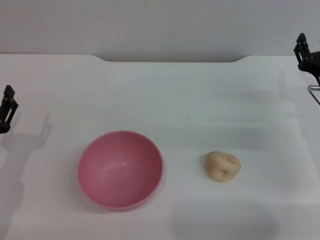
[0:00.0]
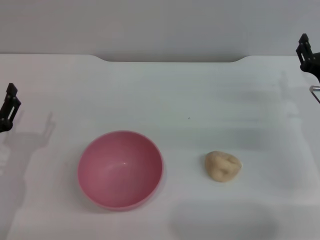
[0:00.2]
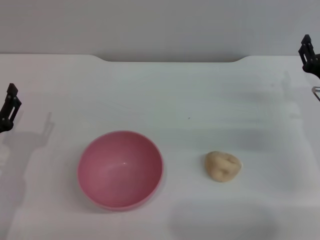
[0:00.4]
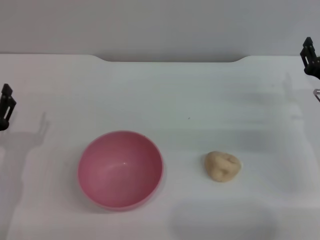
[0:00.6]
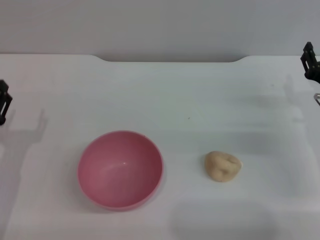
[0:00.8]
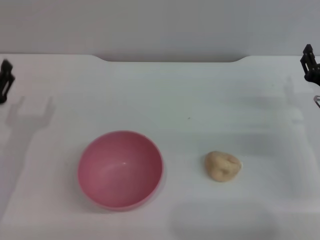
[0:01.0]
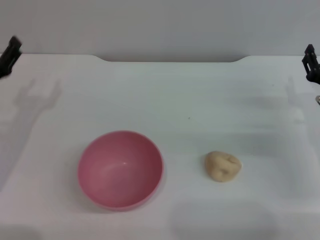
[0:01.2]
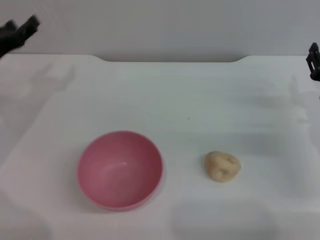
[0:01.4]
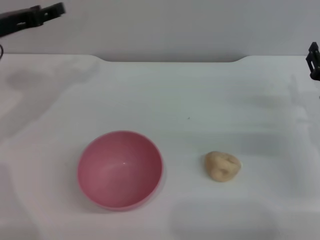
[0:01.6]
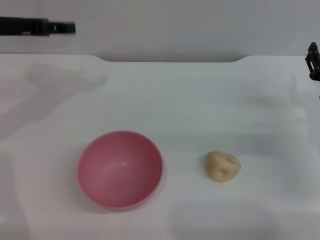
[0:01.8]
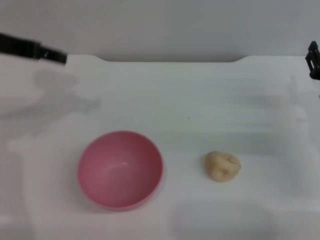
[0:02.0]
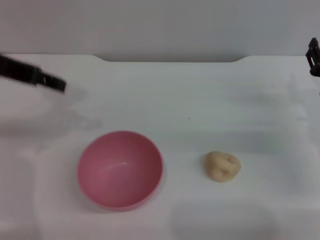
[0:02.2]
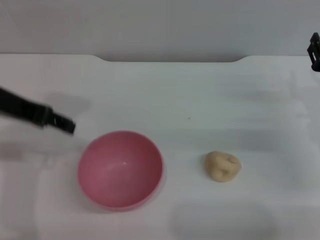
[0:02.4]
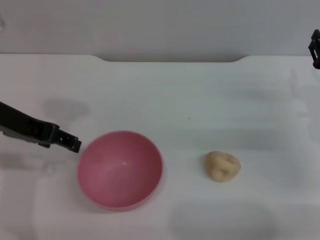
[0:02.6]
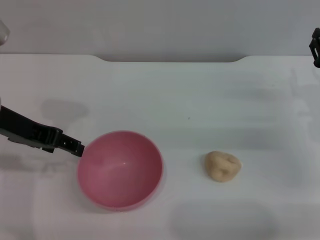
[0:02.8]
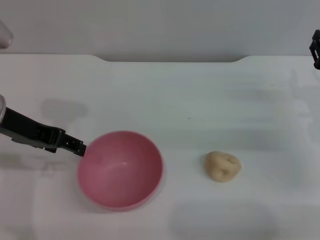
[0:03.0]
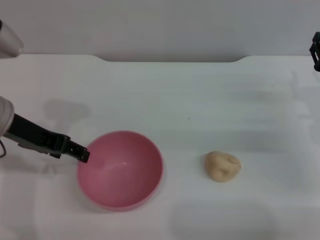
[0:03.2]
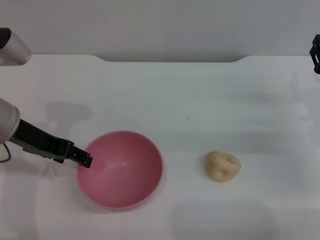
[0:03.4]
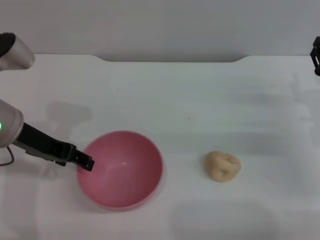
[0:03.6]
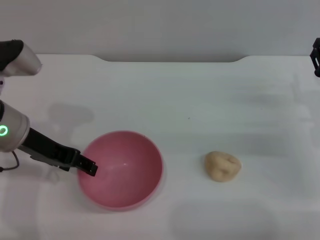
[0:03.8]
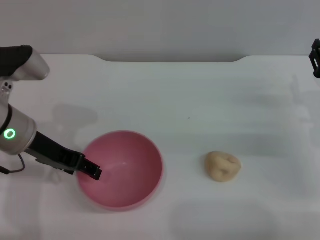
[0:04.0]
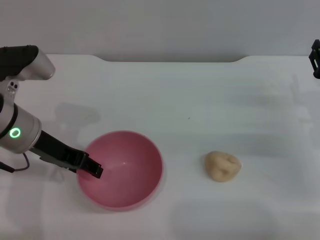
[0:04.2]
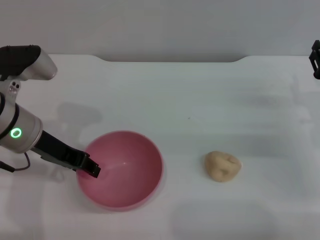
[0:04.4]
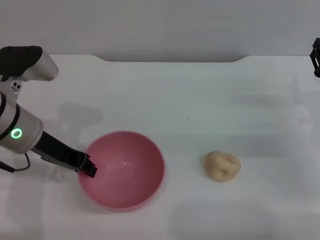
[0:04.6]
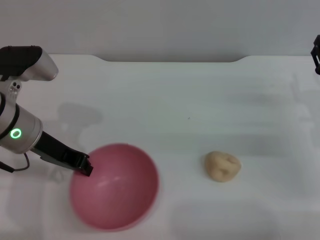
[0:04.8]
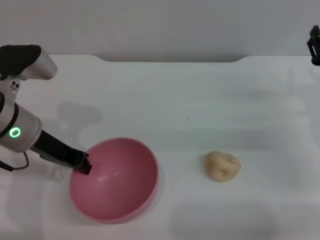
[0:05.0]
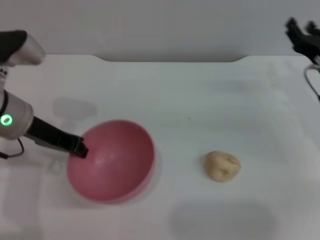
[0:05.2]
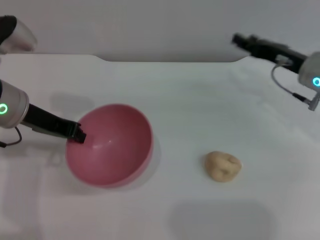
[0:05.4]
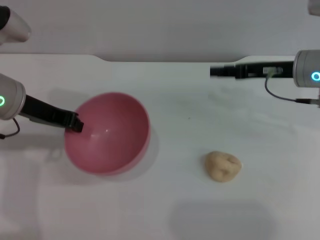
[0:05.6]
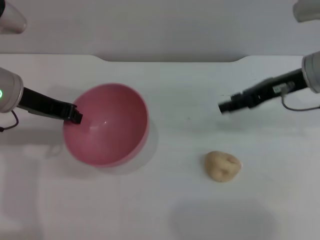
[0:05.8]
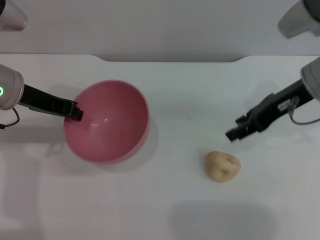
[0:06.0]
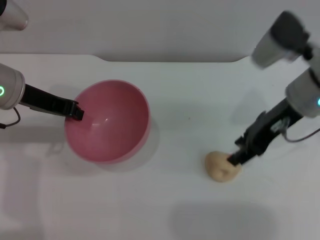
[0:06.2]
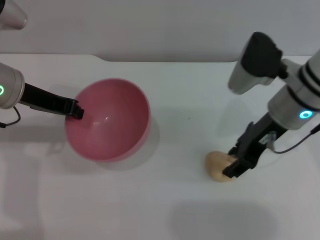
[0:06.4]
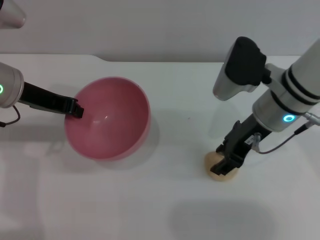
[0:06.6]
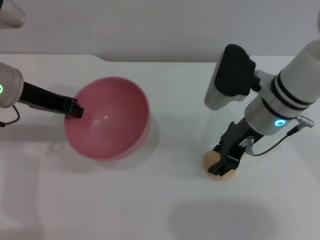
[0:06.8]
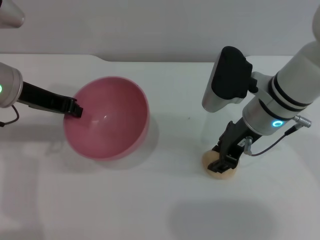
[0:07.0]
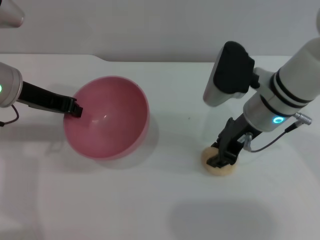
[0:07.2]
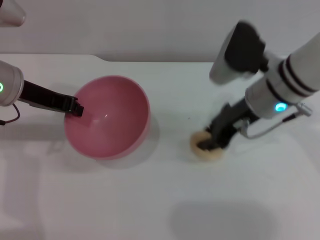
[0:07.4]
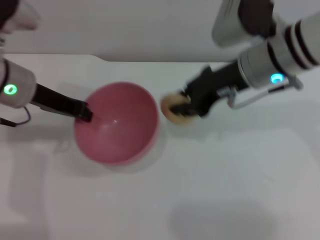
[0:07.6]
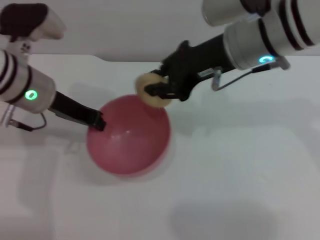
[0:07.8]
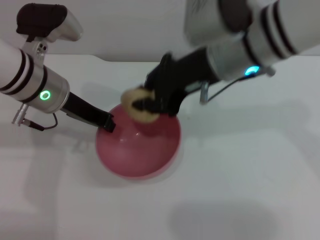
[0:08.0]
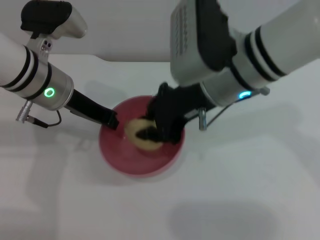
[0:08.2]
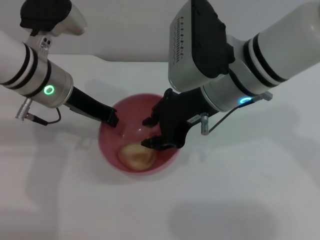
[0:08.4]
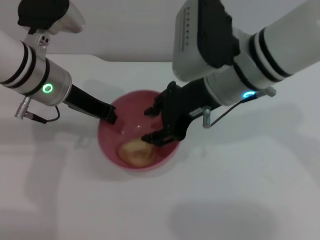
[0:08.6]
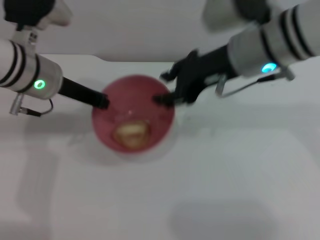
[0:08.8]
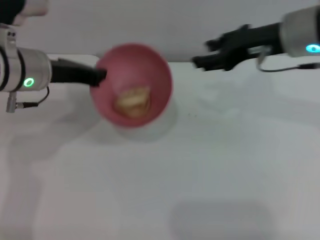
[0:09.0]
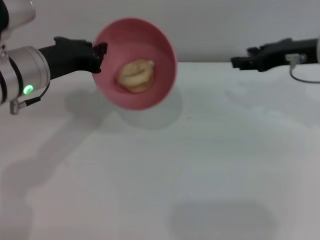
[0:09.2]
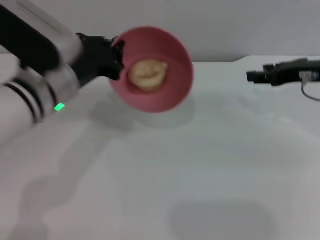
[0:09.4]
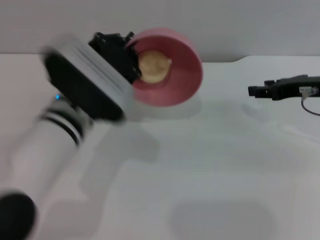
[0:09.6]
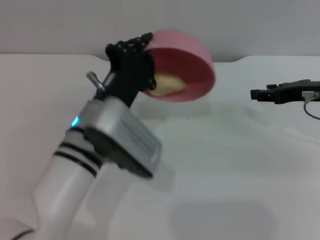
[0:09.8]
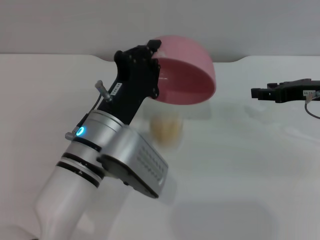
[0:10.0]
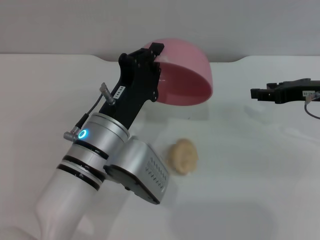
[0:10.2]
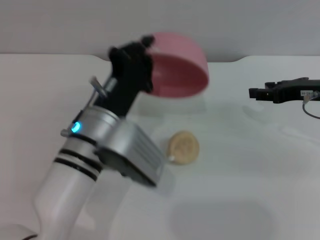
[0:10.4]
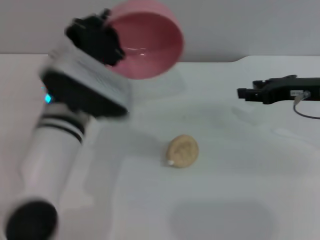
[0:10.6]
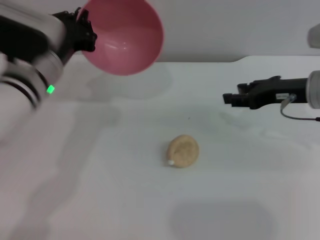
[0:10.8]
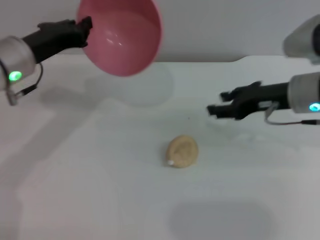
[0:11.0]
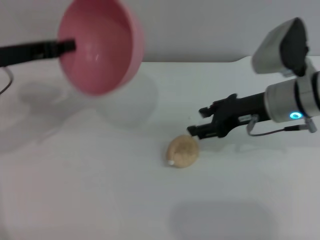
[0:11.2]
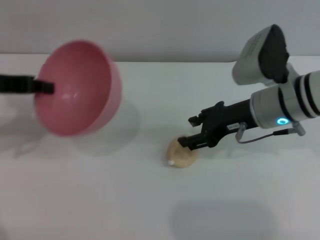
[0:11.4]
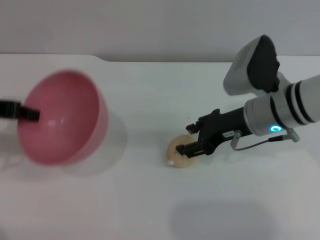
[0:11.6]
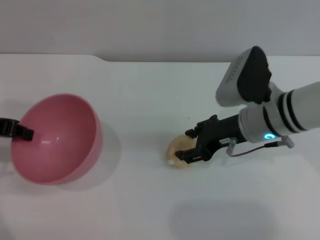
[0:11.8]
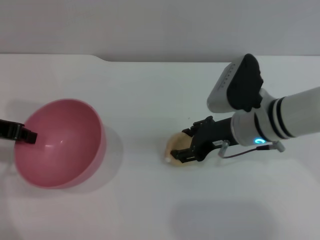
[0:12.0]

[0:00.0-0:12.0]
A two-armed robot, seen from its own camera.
Task of the whole recording: put the egg yolk pastry into the pink bowl and pour it out repeatedly.
Step, 0:00.0 to 0:05.2: Pick up the bowl with the left gripper.
Step, 0:05.6 to 0:07.2: Pick up the egg yolk pastry with the right gripper.
Step, 0:07.4 to 0:08.8: Place the egg yolk pastry into the bowl.
Step, 0:09.0 to 0:10.0: Pour the egg yolk pastry out of bowl.
0:00.0 to 0:01.6: The left gripper moves forward and upward, approximately 25 cm.
0:01.6 to 0:03.0: The left gripper goes about 10 cm backward and to the right.
0:03.0 to 0:04.4: The left gripper moves downward, roughly 5 cm.
0:04.4 to 0:06.0: The right gripper travels upward and to the left by some 15 cm; the left gripper ends up about 5 cm from where it was, and closes.
0:06.0 to 0:07.6: The right gripper goes roughly 10 cm to the left.
0:07.6 to 0:09.0: The right gripper goes about 5 cm to the right, and opens its fingers.
0:09.0 to 0:10.4: The left gripper shifts some 15 cm to the right, backward and downward. Meanwhile the right gripper goes some 15 cm to the right and downward.
0:10.4 to 0:12.0: The left gripper travels to the left and upward by approximately 25 cm, while the right gripper shifts approximately 15 cm to the left.

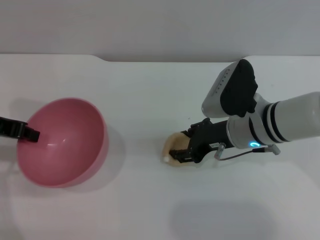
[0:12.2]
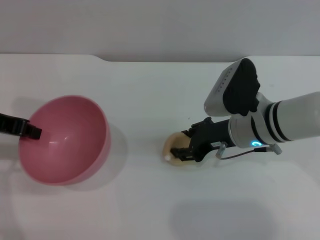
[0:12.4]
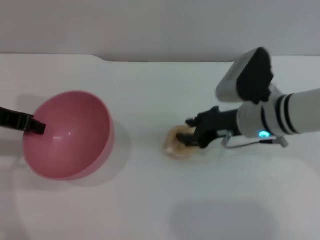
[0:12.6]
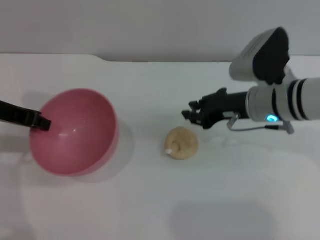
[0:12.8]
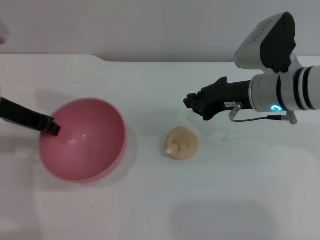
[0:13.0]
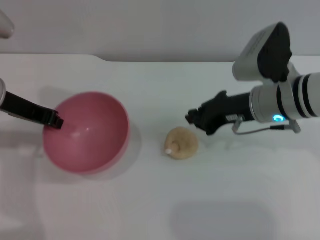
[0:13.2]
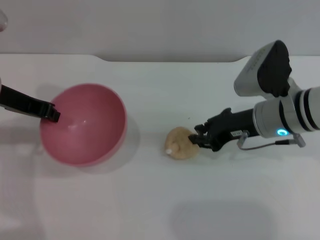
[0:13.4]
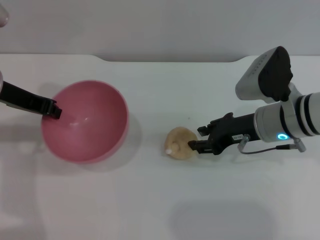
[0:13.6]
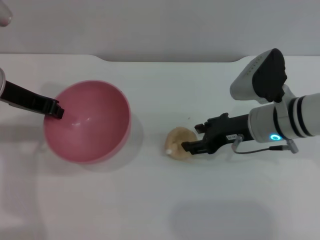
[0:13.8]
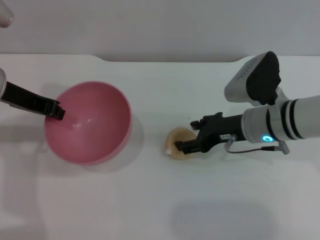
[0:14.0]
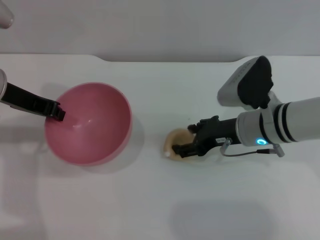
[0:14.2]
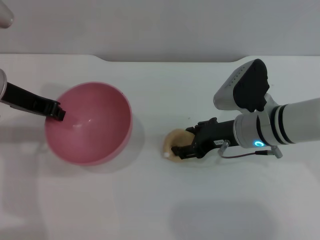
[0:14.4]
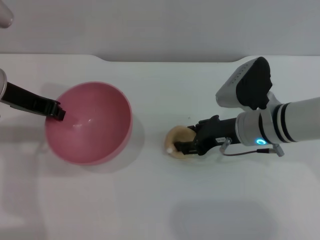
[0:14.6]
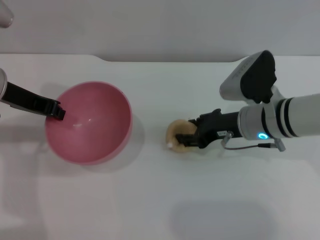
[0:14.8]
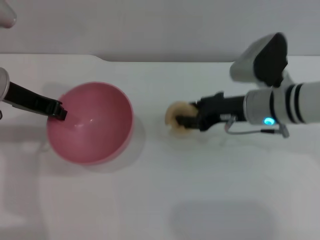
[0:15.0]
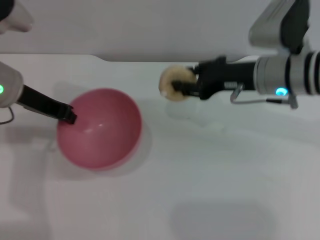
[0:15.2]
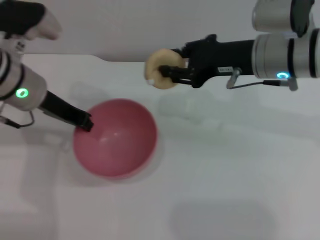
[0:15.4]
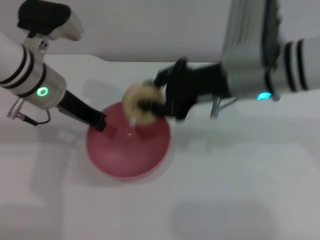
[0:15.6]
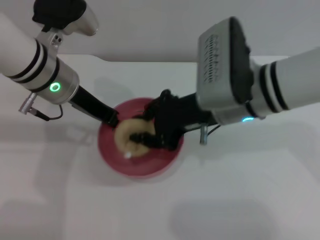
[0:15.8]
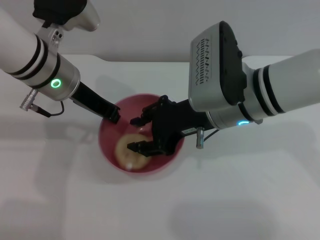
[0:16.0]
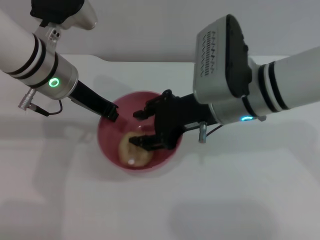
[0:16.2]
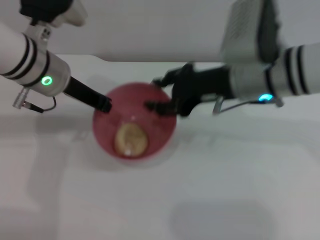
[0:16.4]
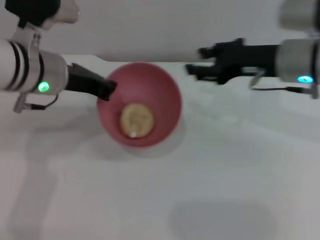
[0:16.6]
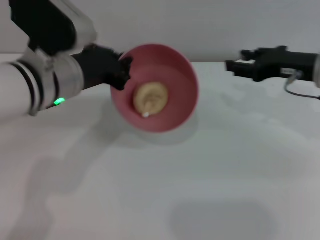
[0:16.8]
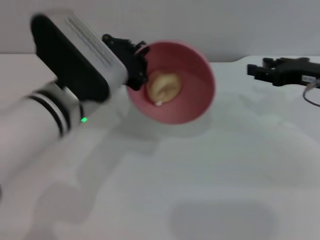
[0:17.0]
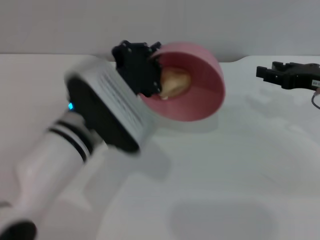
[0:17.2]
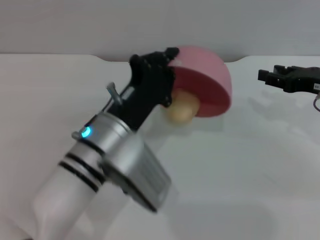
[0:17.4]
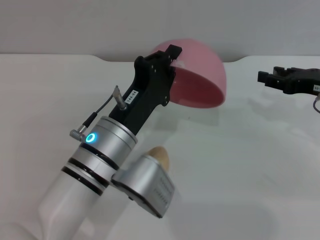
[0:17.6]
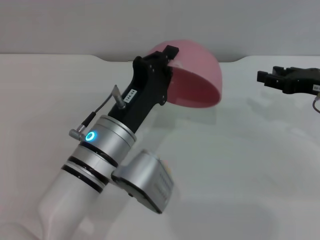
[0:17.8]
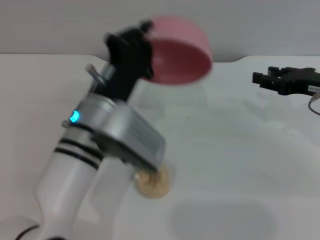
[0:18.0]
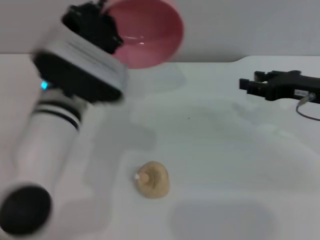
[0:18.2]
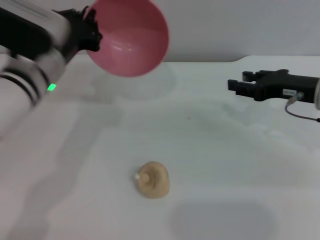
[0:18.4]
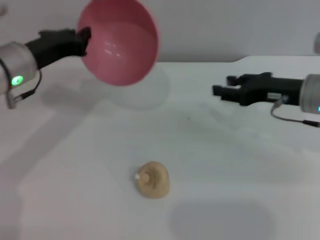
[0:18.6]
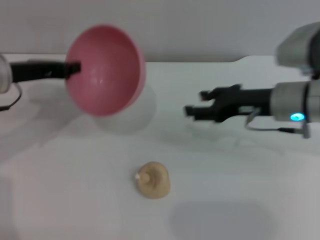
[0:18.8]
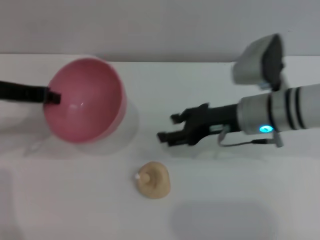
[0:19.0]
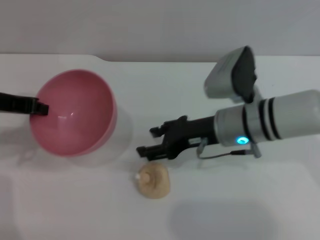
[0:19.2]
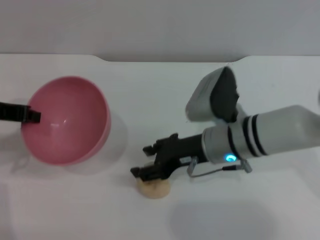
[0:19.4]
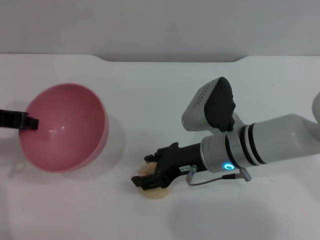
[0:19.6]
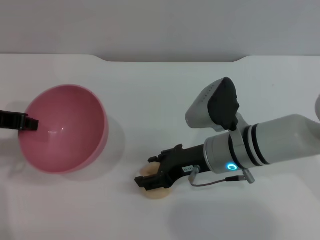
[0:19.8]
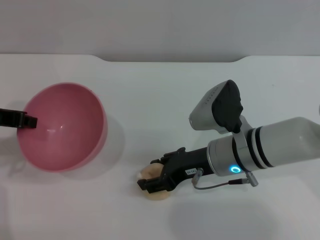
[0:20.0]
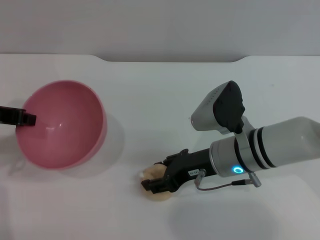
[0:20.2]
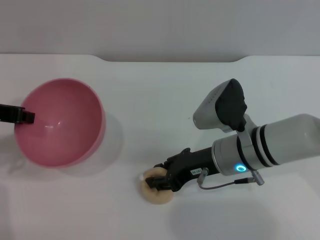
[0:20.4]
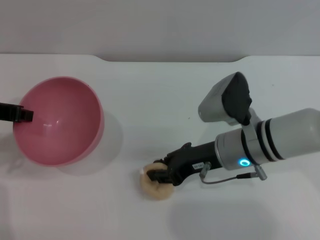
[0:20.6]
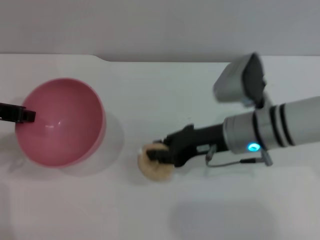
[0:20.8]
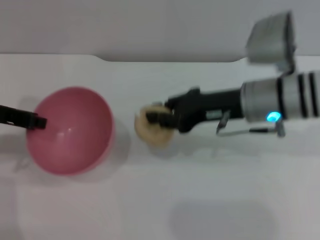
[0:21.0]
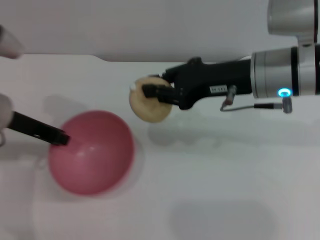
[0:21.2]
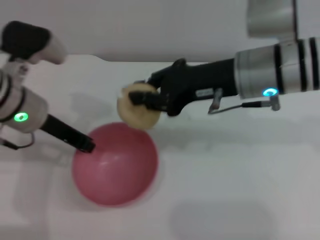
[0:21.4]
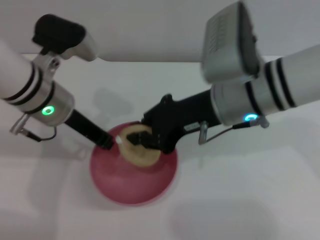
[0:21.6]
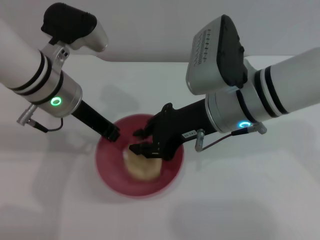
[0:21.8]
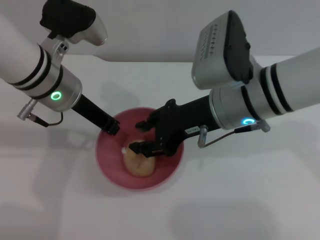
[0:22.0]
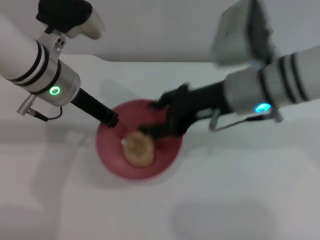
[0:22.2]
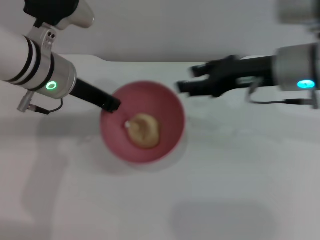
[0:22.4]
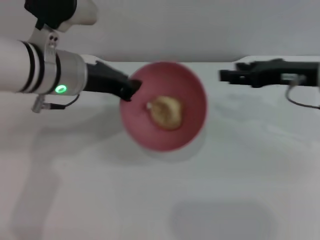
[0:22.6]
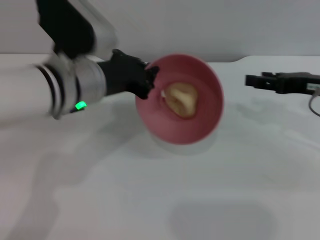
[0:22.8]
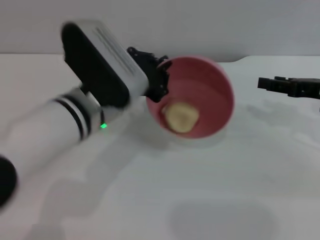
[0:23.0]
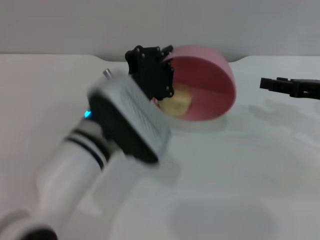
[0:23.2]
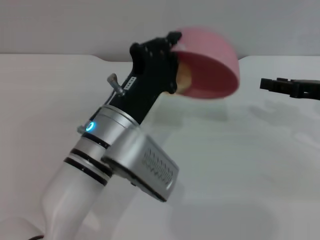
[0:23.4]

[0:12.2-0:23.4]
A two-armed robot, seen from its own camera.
Task of the whole recording: put the egg yolk pastry into the pink bowl and pour it out repeatedly.
Step, 0:12.2 to 0:15.2: Pick up the egg yolk pastry with the right gripper.
Step, 0:15.4 to 0:16.4: Place the egg yolk pastry into the bowl.
Step, 0:16.6 to 0:17.4: Pour the egg yolk pastry out of bowl.
Step, 0:17.6 to 0:21.0: Pick up the egg yolk pastry with the right gripper.
Step, 0:21.2 to 0:22.2: Place the egg yolk pastry into the bowl.
0:12.2 to 0:13.8: The right gripper closes, then opens again, while the left gripper changes place by about 5 cm.
0:13.8 to 0:15.4: The left gripper moves about 5 cm, while the right gripper heads upward, covering some 10 cm.
0:15.4 to 0:17.0: The left gripper heads to the right and backward, covering approximately 10 cm, while the right gripper is displaced to the right and downward by roughly 15 cm.
0:17.0 to 0:18.6: The left gripper is displaced to the left and forward by some 10 cm.
0:18.6 to 0:20.2: The left gripper travels to the left and backward by roughly 10 cm; the right gripper is displaced to the left and downward by roughly 15 cm.
0:20.2 to 0:21.8: The right gripper heads upward, covering roughly 10 cm, and closes up, while the left gripper is displaced to the right by about 15 cm.
0:21.8 to 0:23.4: The right gripper travels to the right by about 20 cm, and opens; the left gripper is displaced backward, to the right and downward by approximately 15 cm.
